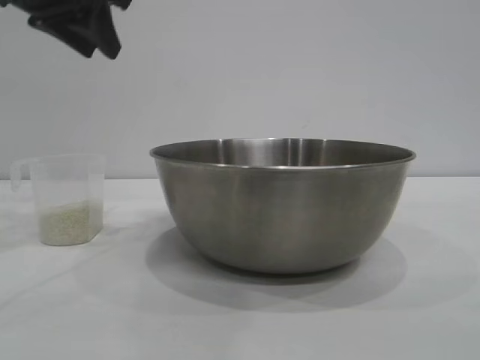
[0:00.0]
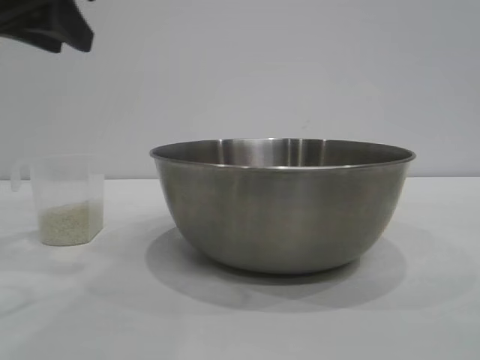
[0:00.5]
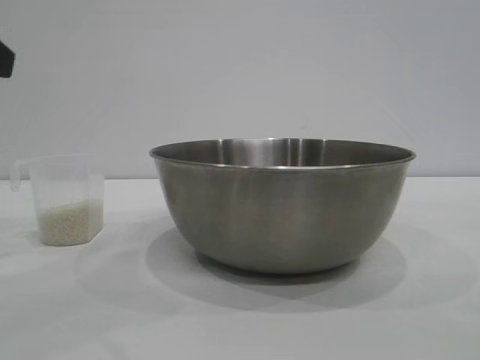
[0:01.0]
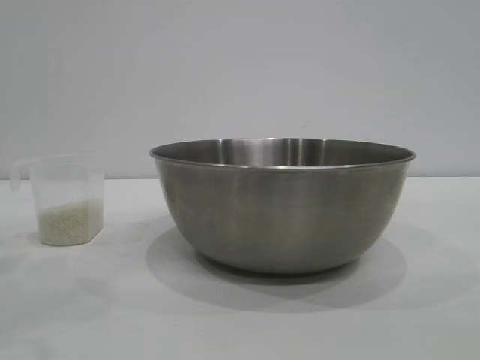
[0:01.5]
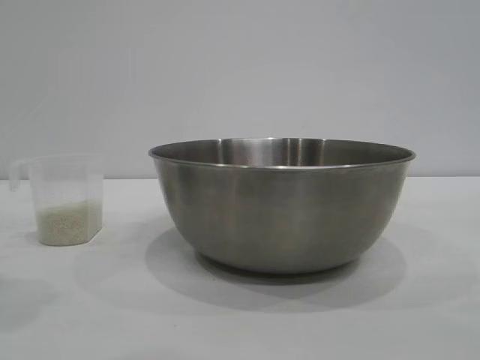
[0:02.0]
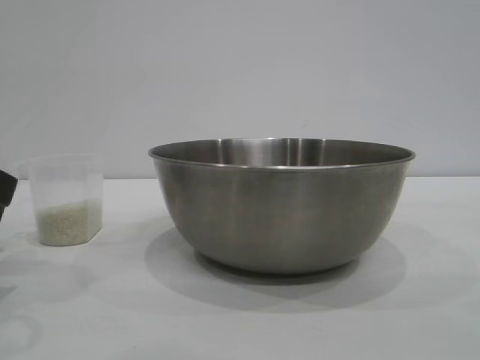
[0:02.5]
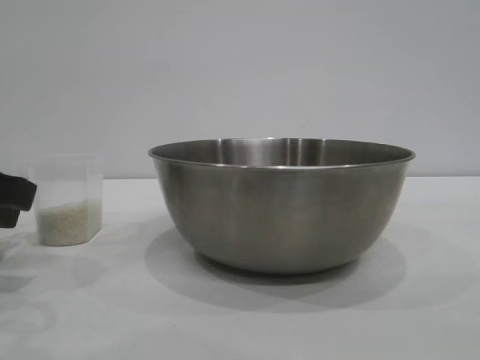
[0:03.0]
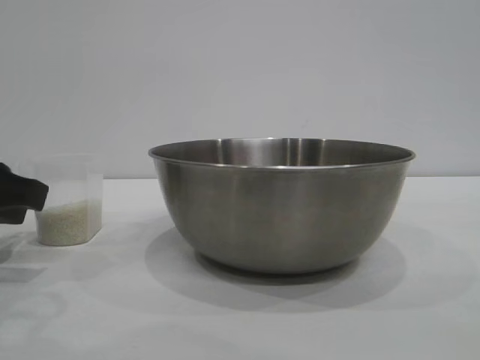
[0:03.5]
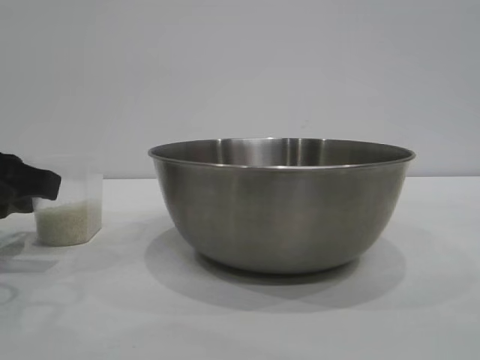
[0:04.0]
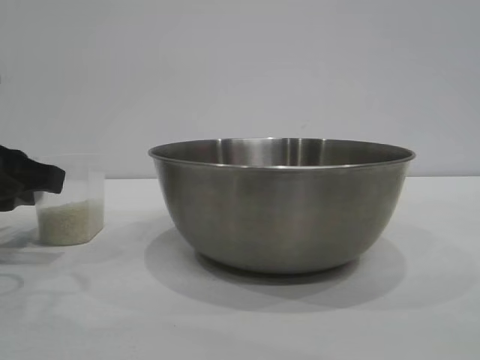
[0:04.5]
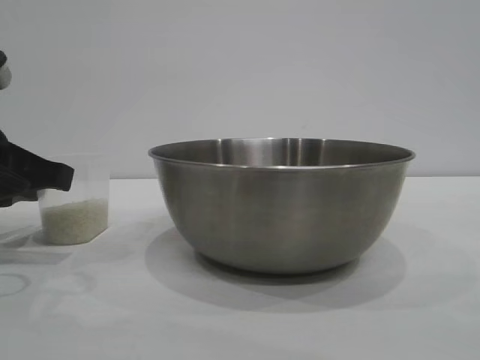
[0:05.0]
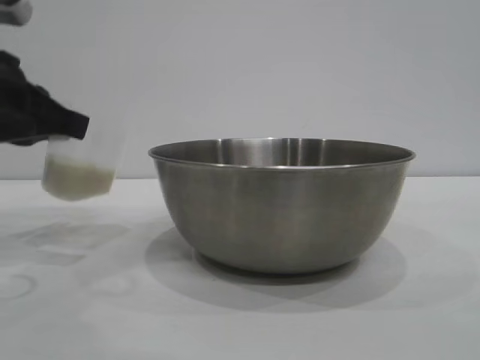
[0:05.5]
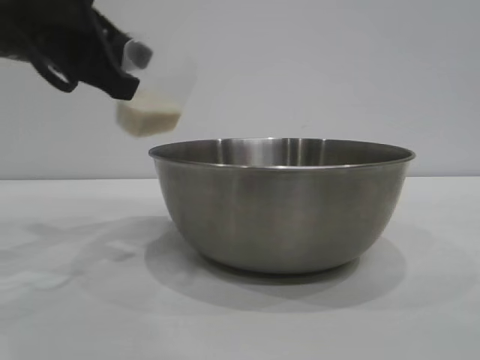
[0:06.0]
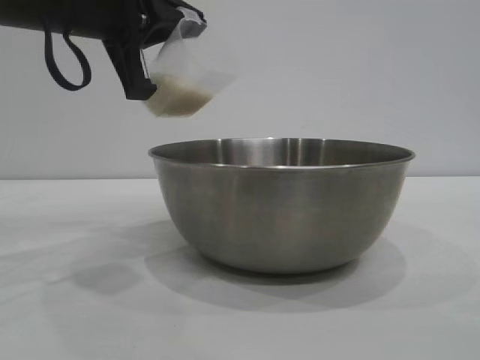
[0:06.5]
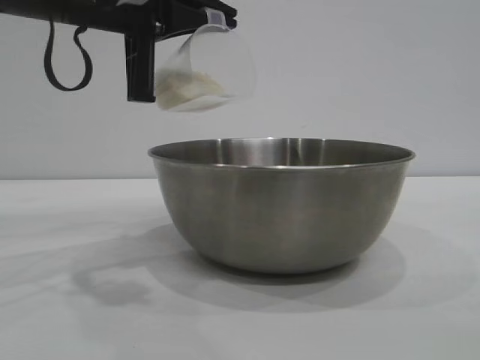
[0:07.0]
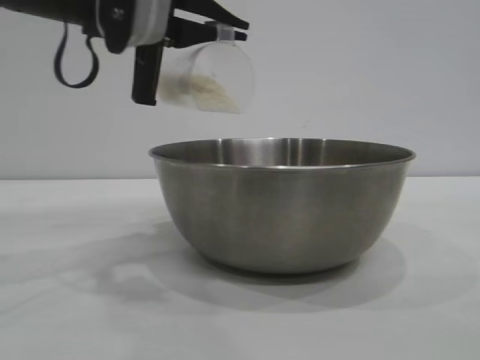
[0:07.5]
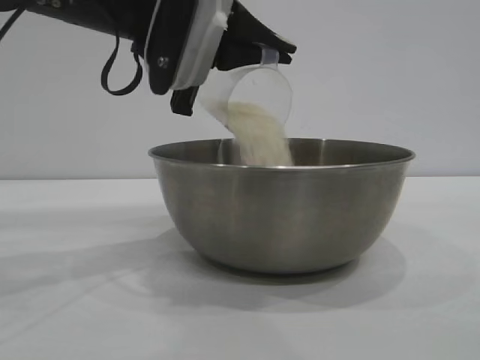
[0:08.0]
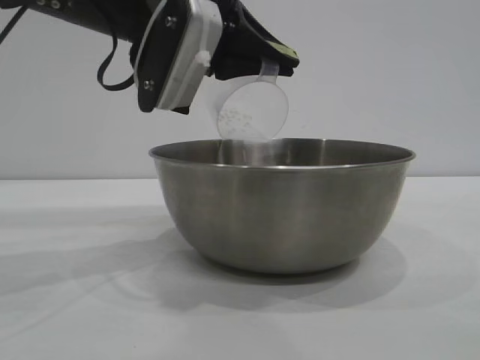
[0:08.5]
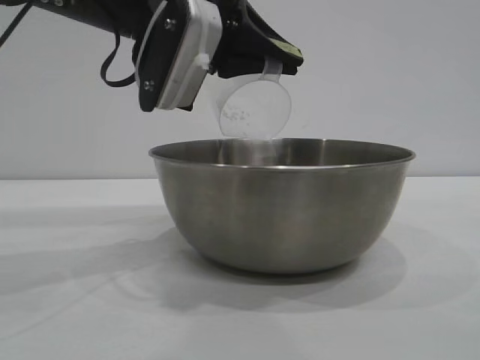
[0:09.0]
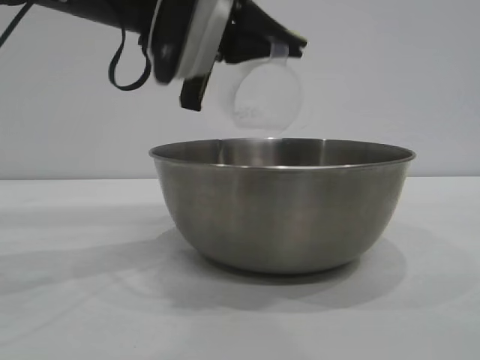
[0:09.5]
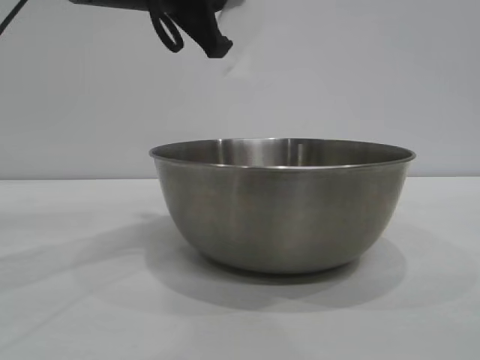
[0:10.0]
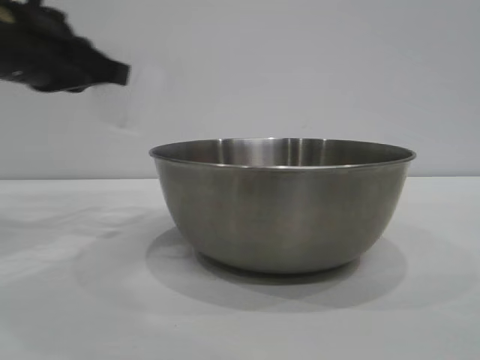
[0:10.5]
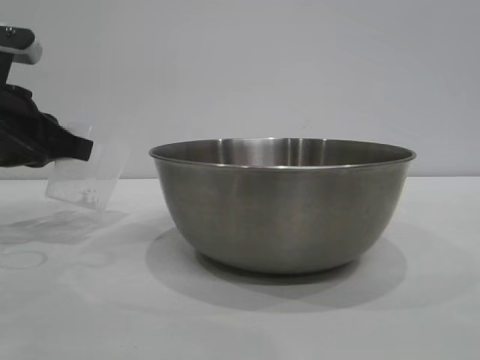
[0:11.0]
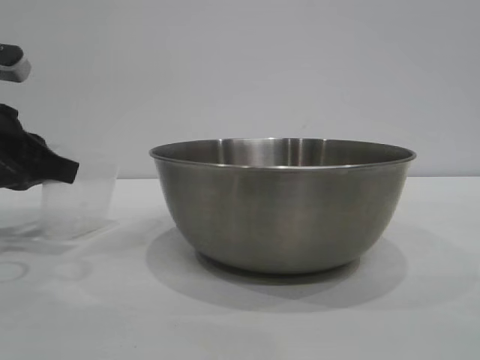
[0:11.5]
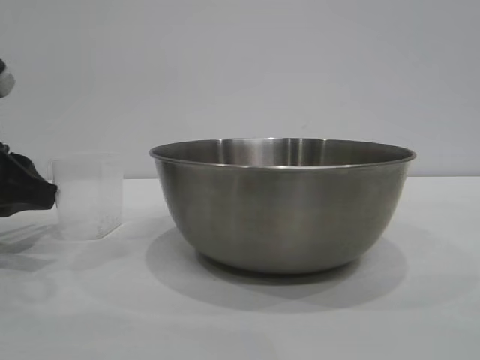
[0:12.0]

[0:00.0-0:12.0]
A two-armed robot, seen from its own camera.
Task of the whole recording: the right gripper grasp the rice container and place it in the center of the table, the left gripper grasp the rice scoop and pour the rice into the rice container.
Step, 0:00.0 to 0:05.5: Pick up the cup with rice in it with the left gripper.
Step, 0:06.0 to 0:09.5: Pour the rice from the cup into the bowl with the left gripper.

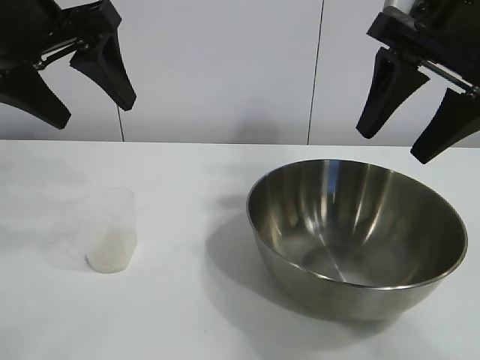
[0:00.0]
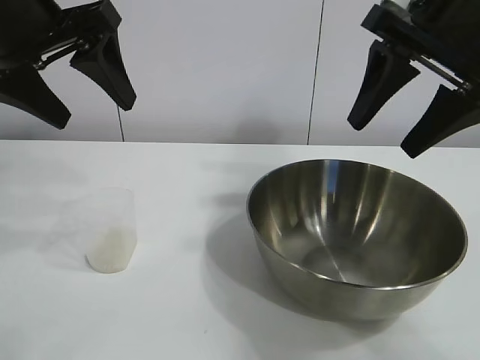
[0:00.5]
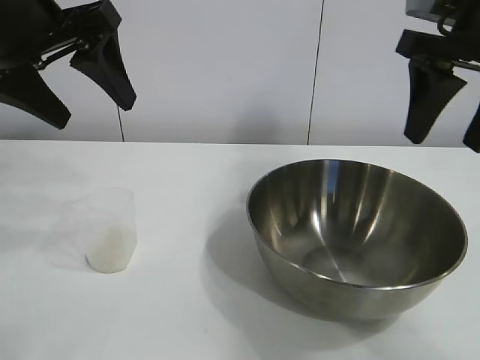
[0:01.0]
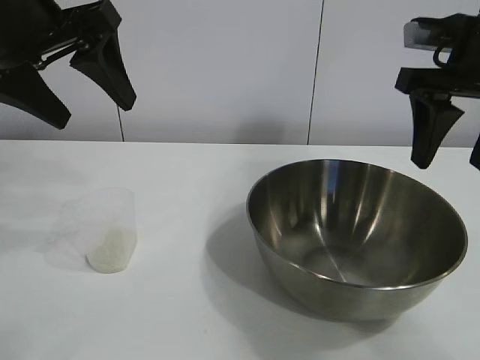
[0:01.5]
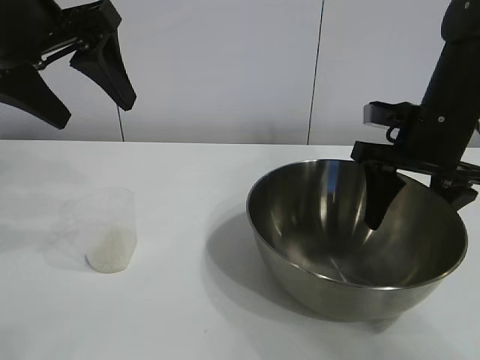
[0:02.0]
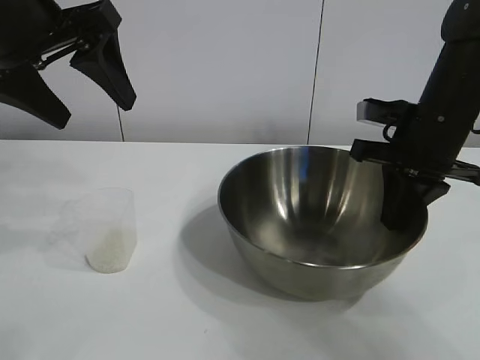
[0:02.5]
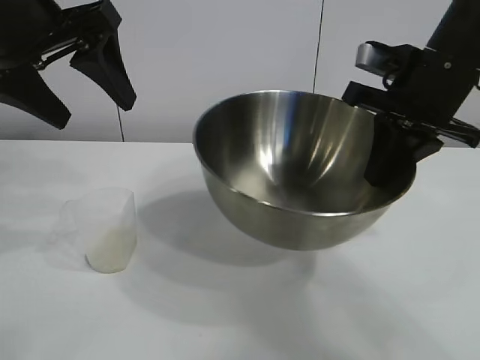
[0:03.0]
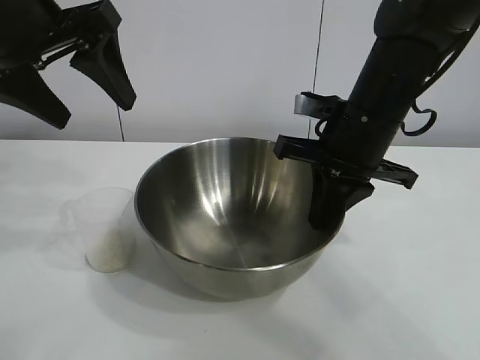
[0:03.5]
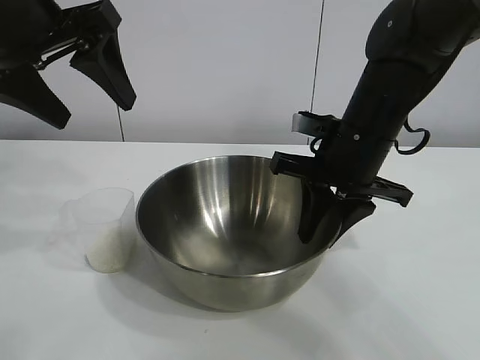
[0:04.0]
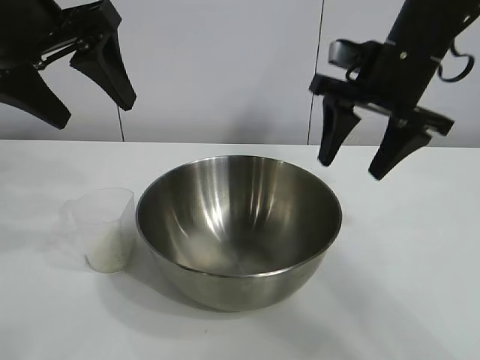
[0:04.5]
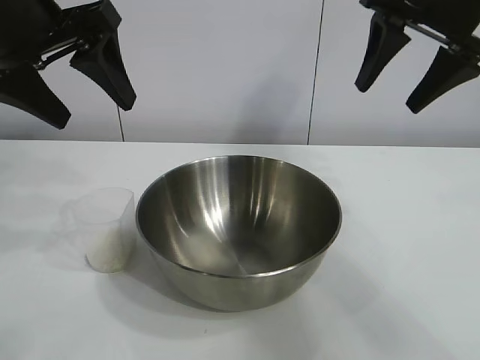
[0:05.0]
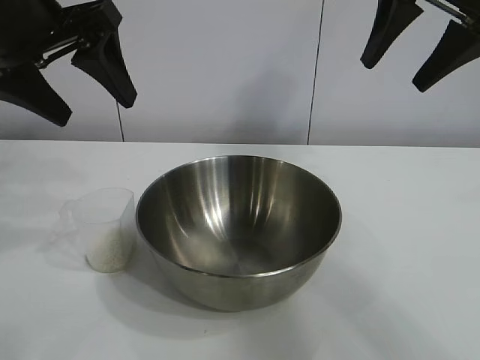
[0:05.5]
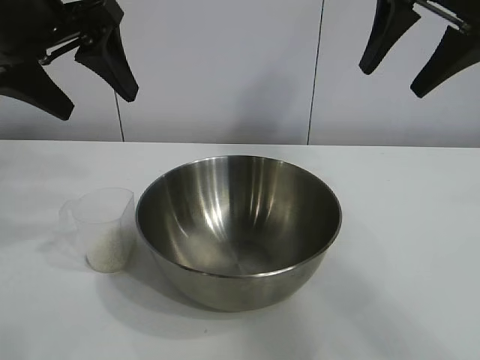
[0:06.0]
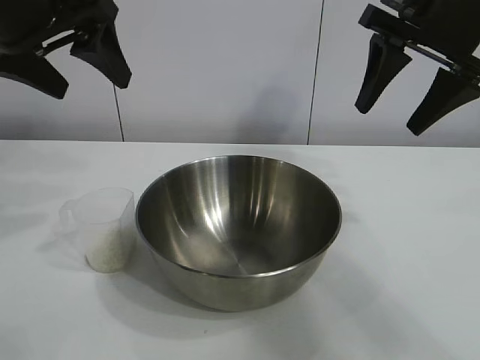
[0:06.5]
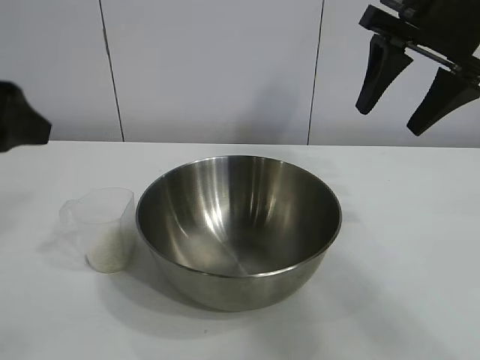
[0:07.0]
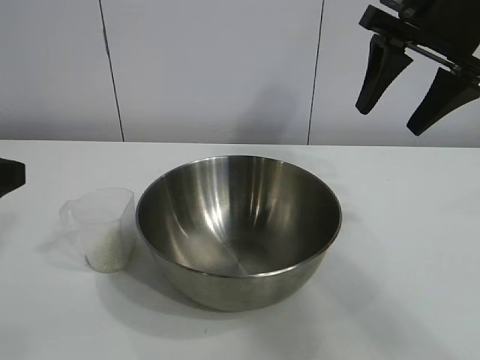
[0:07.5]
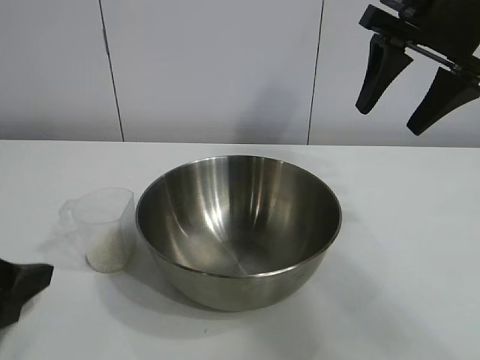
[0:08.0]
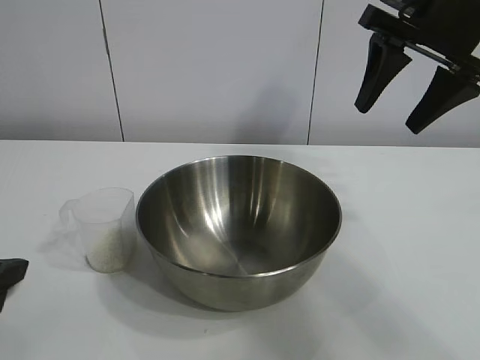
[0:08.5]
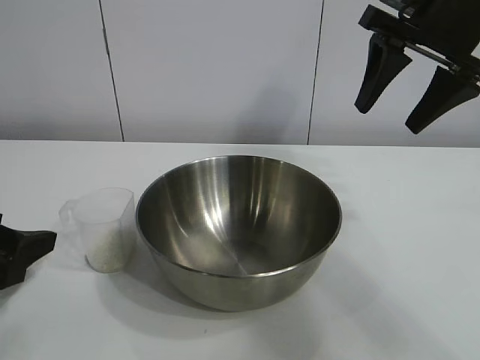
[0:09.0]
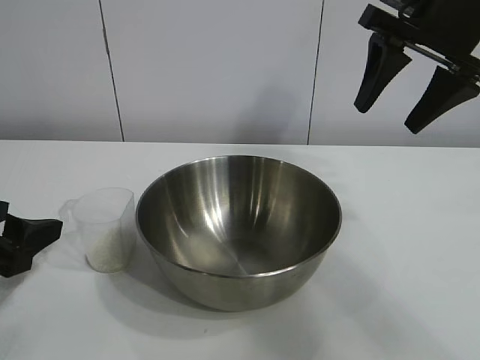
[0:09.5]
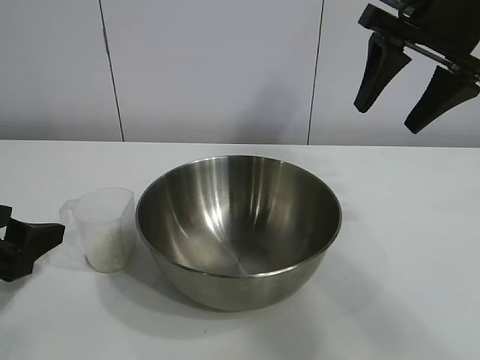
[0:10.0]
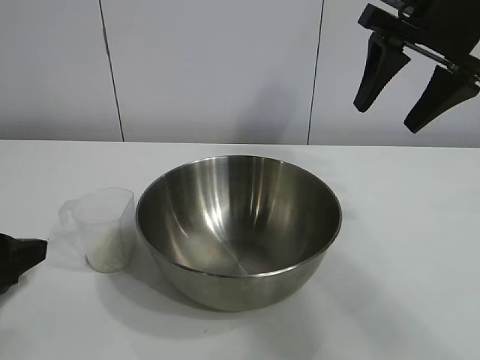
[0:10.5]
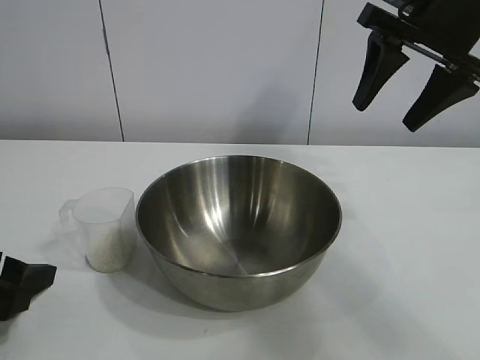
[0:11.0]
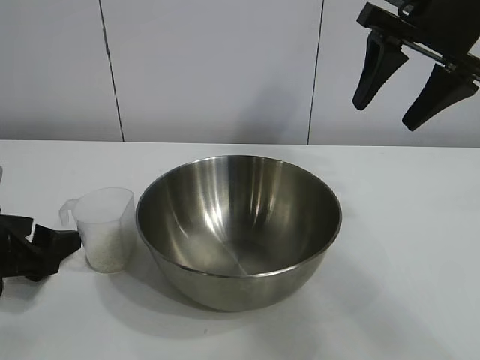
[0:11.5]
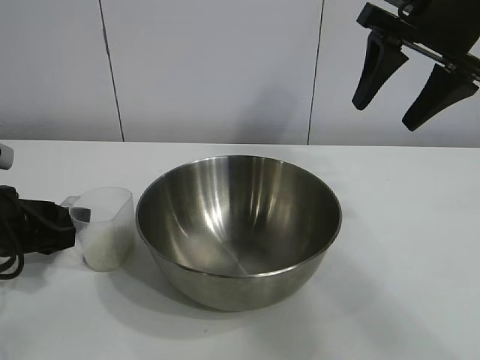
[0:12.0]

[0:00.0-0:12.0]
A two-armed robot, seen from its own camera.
Task of the whole recording: the right gripper grasp the rice container and place it in the center of the table, the left gripper grasp the rice scoop and pour the rice into the rice container.
Step, 0:00.0 to 0:04.0: Move the bowl in the center of view with right gripper.

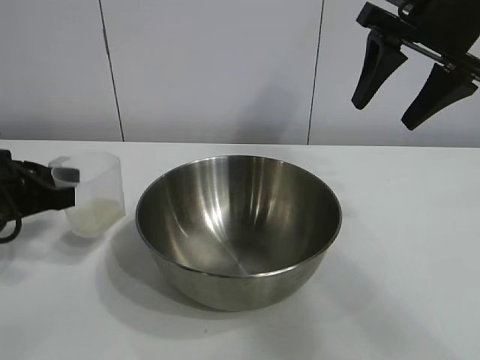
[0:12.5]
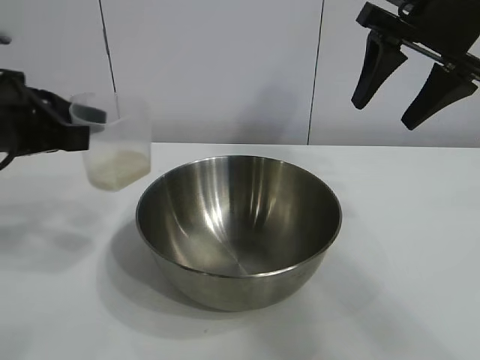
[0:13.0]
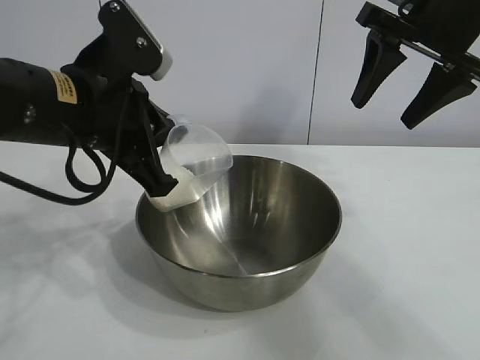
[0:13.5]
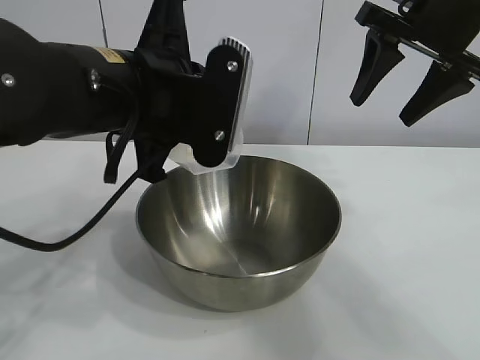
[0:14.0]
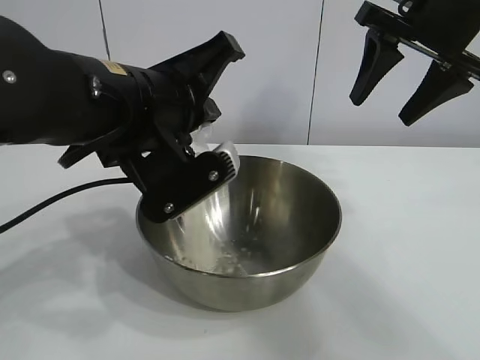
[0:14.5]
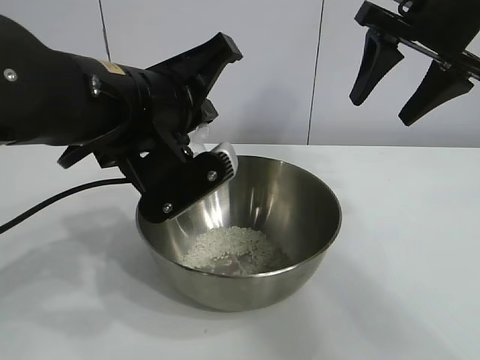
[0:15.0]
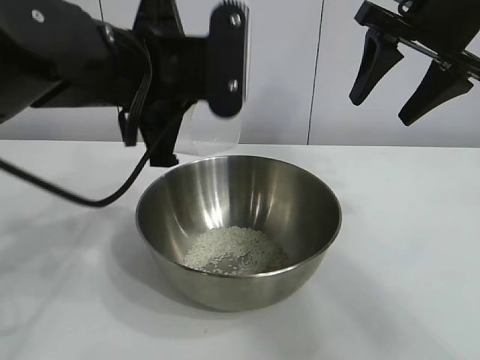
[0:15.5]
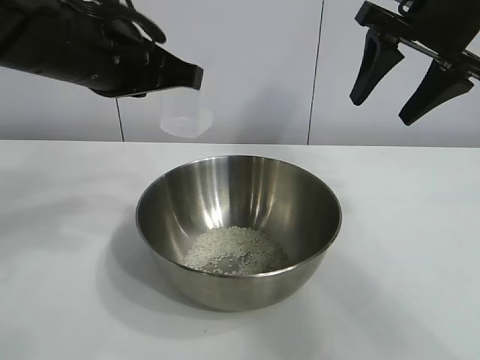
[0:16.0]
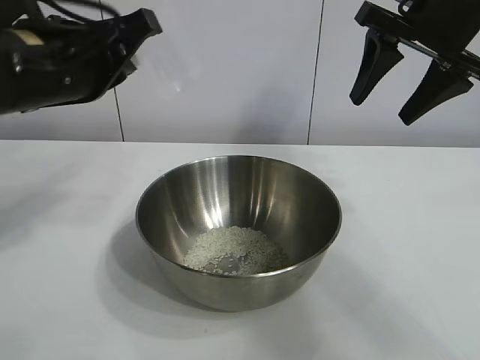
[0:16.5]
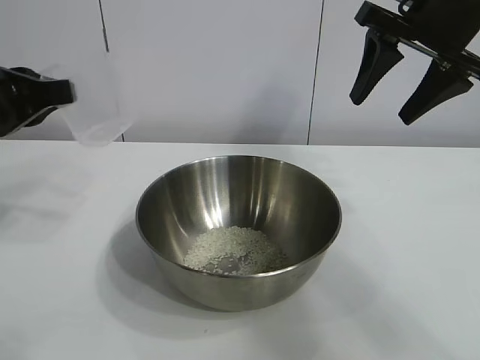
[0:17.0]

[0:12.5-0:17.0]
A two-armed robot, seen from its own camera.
Task of the whole recording: the right gripper grasp the rice container and place it in the center of the table, the left gripper grasp the rice scoop and pour the rice into the rice container.
Step, 0:12.5 to 0:15.5: Pour the rice from the cup into the bowl with the left gripper.
